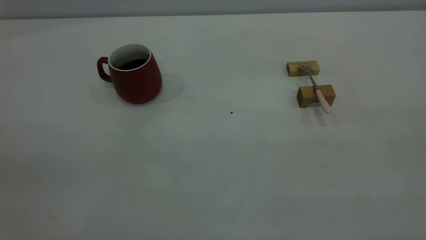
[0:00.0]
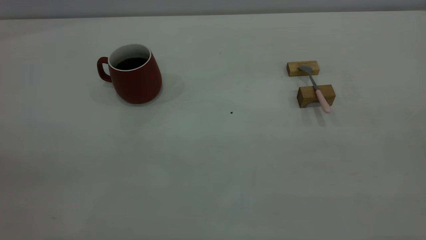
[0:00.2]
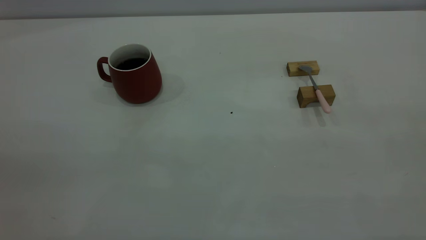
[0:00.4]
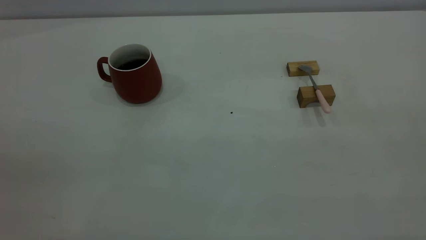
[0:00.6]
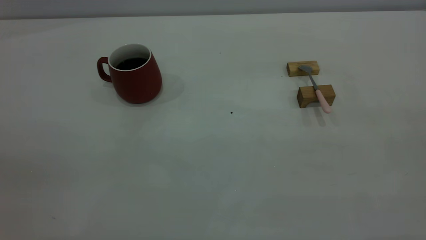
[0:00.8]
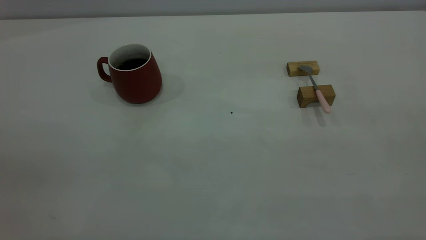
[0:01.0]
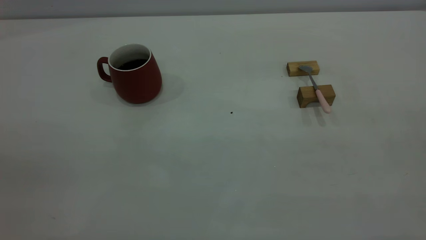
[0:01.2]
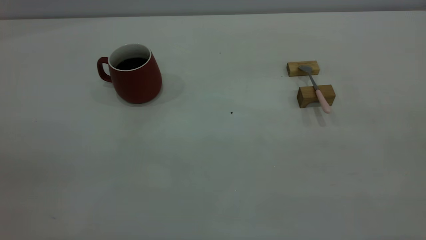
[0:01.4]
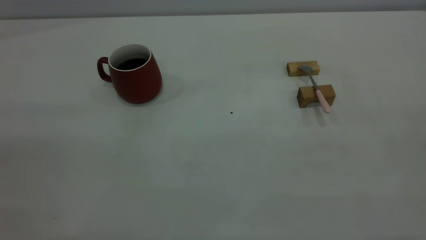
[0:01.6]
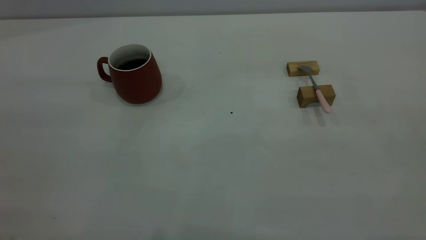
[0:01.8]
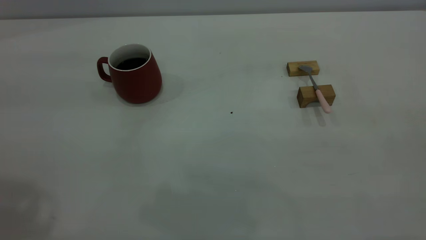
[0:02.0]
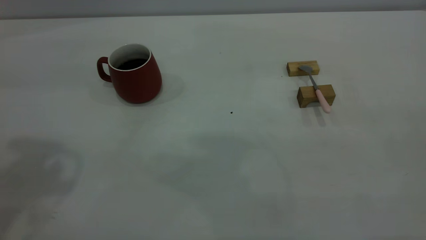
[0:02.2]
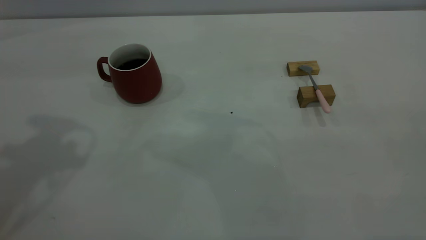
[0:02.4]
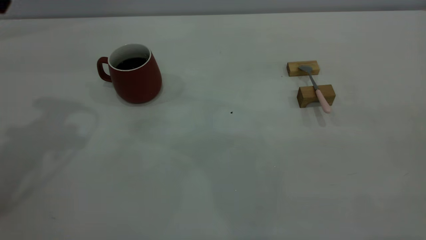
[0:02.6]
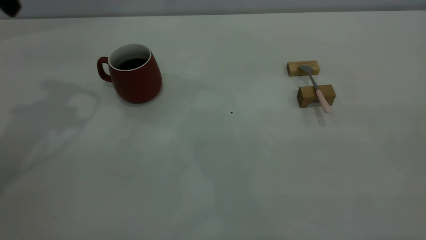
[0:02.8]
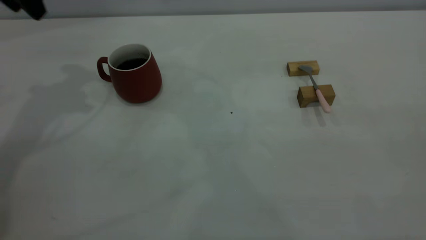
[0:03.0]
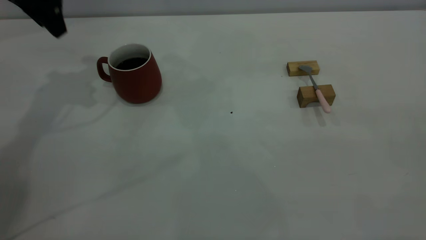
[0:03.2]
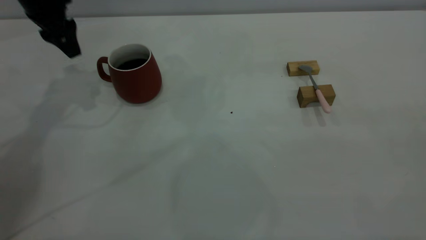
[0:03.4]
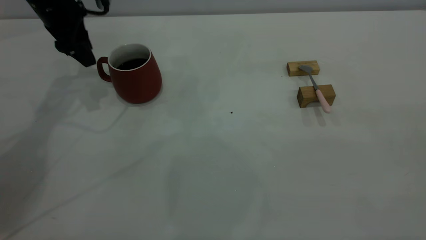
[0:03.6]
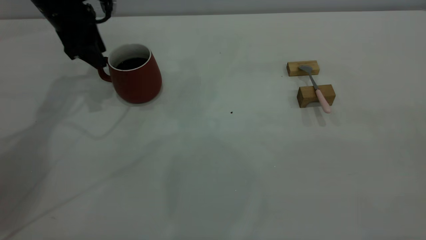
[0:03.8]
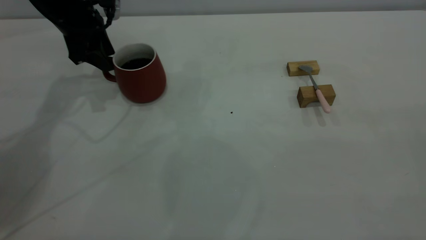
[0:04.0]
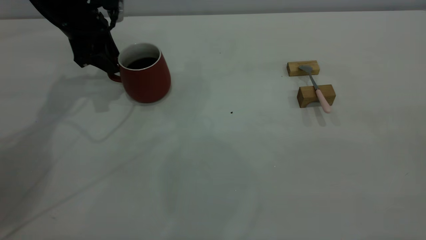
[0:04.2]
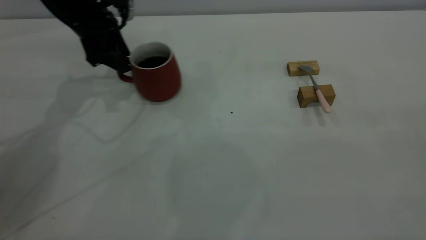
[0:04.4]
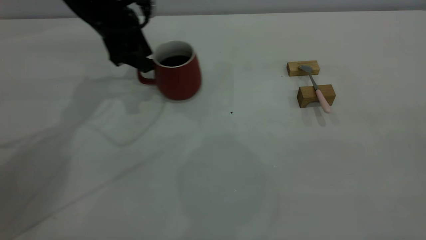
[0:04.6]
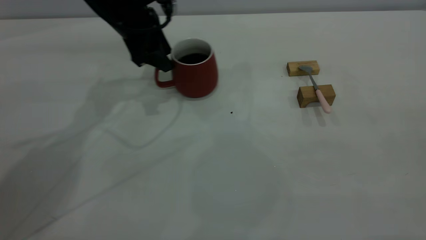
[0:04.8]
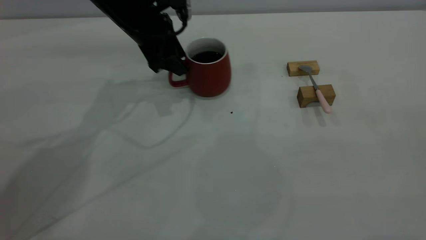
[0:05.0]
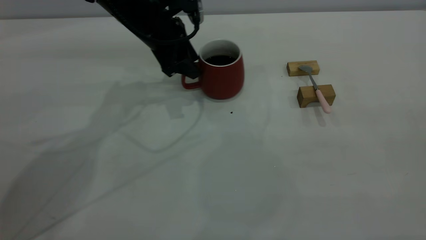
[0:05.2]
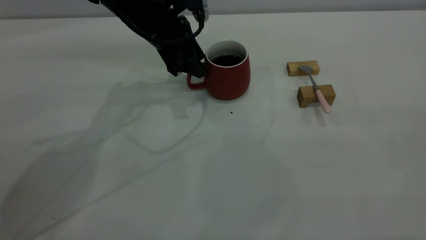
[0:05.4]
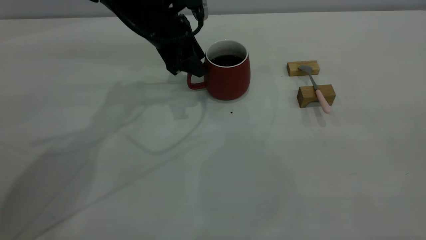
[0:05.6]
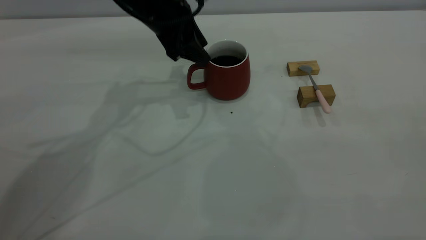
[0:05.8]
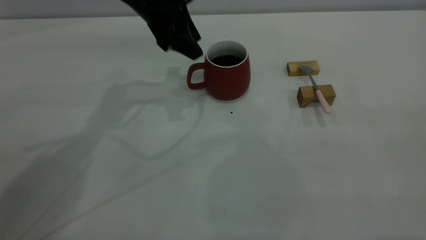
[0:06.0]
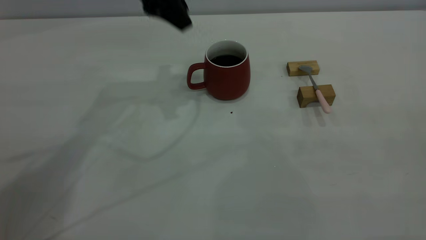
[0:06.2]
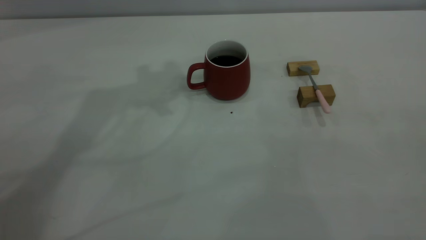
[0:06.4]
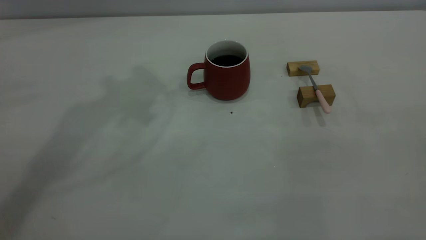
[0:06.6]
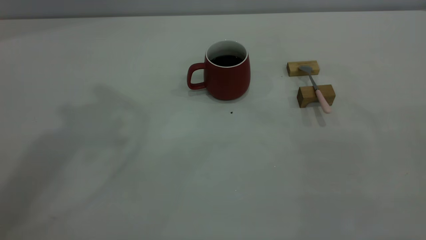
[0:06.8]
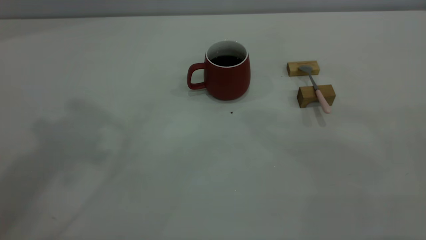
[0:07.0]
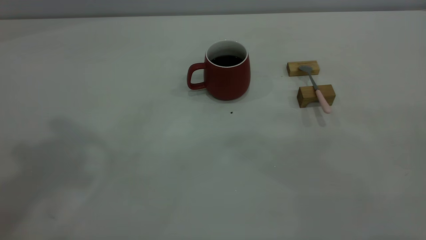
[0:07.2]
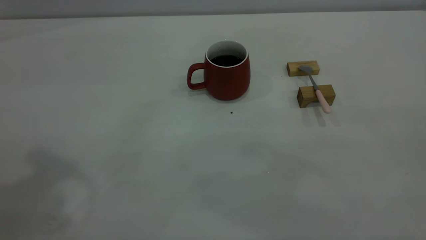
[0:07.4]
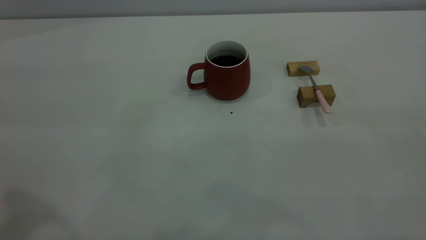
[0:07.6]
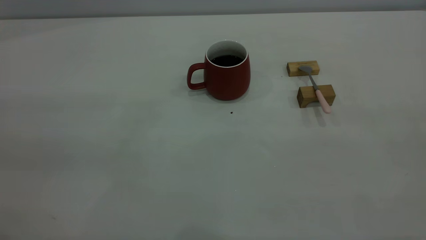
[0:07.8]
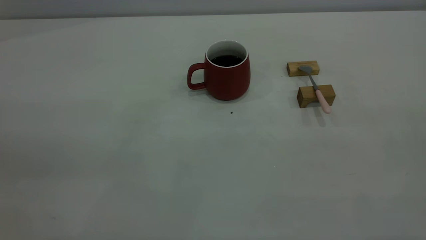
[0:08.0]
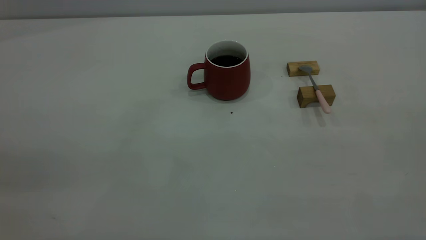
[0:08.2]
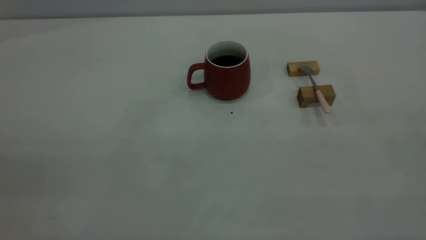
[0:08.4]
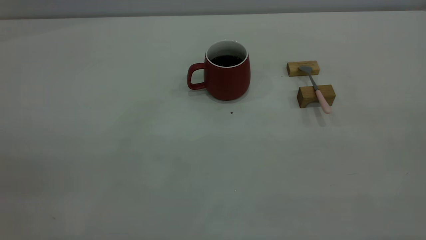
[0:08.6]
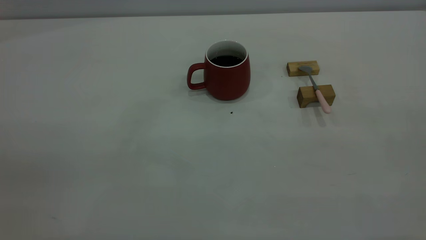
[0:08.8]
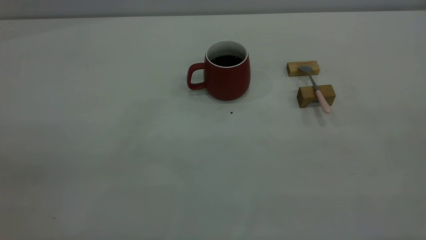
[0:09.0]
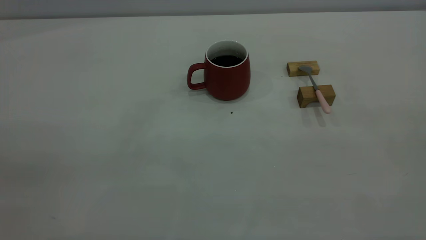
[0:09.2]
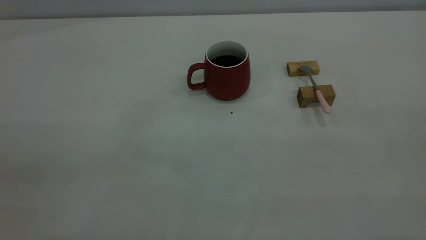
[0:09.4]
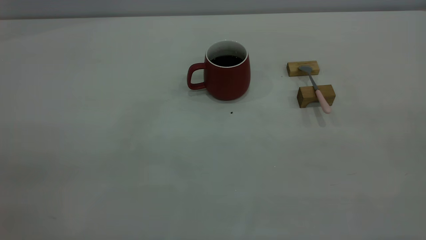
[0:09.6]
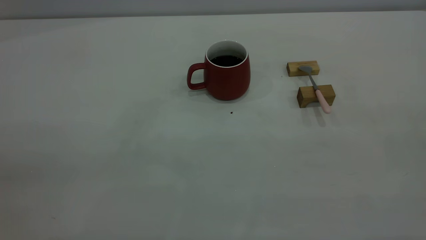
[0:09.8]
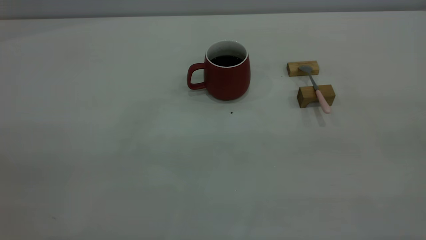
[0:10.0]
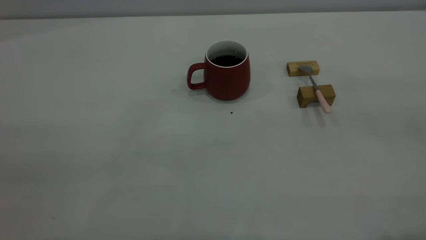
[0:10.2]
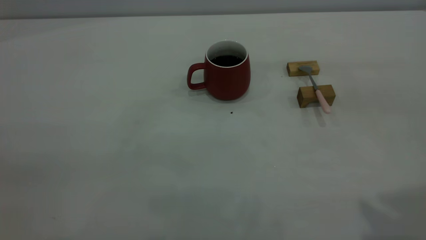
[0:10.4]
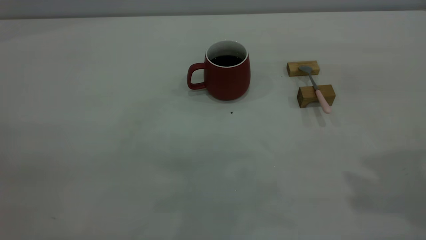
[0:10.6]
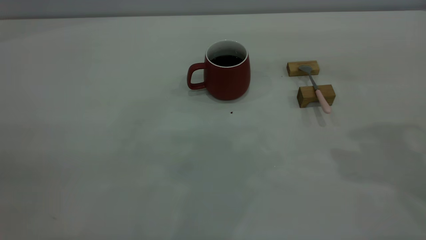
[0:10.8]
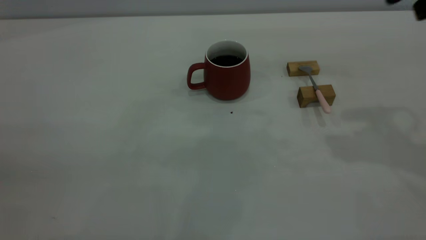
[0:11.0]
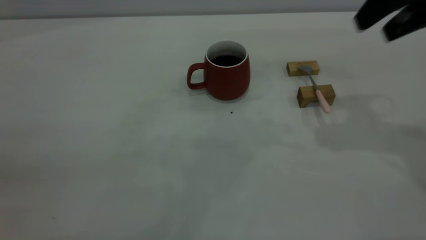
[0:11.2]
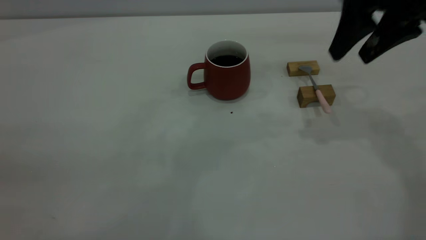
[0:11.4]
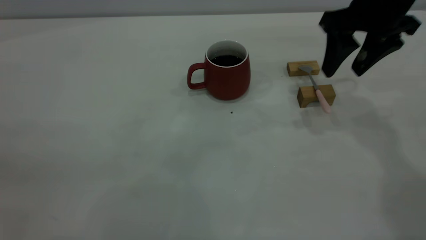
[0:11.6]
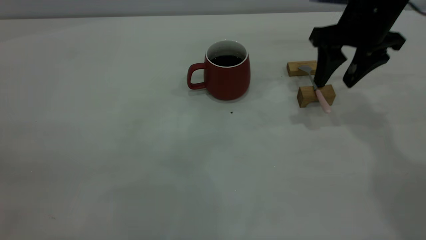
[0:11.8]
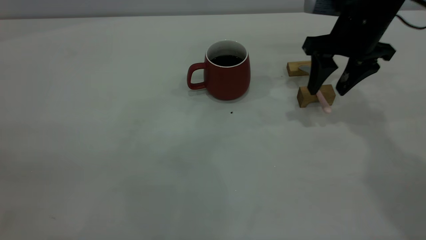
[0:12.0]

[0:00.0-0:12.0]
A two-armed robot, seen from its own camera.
Step, 0:00.0 to 0:06.0: Move the cup with coffee to the center of view.
0:03.0 to 0:04.4: The left gripper heads downward and to the right, covering about 15 cm.
0:04.4 to 0:06.0: The left gripper goes approximately 10 cm to the right and upward.
0:06.0 to 0:07.6: The left gripper travels backward, upward and to the left by about 40 cm.
0:10.4 to 0:12.0: The right gripper moves forward and downward, about 35 cm.

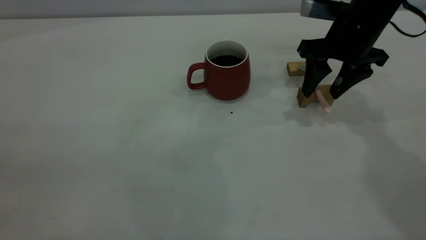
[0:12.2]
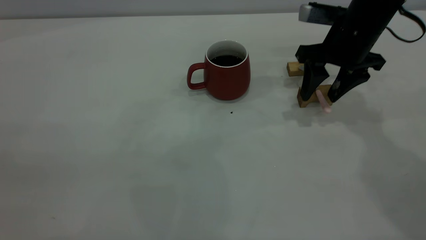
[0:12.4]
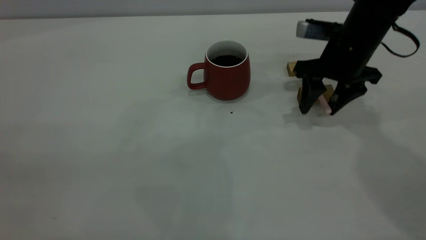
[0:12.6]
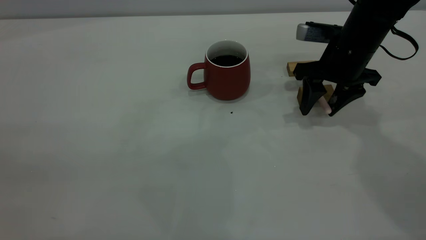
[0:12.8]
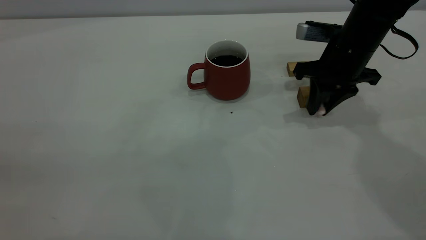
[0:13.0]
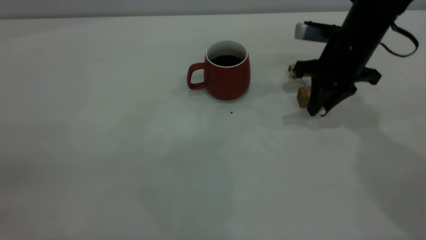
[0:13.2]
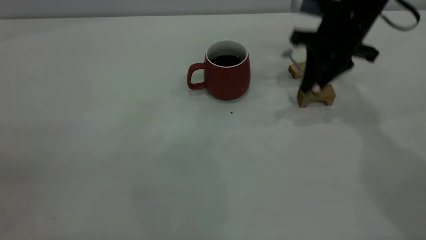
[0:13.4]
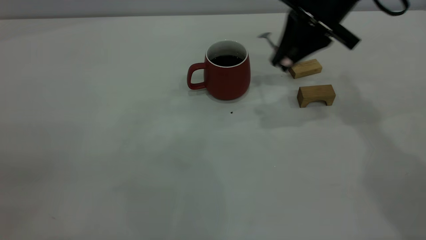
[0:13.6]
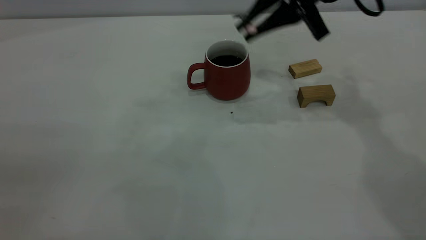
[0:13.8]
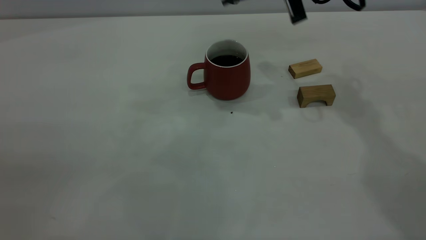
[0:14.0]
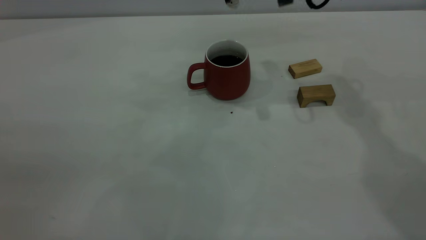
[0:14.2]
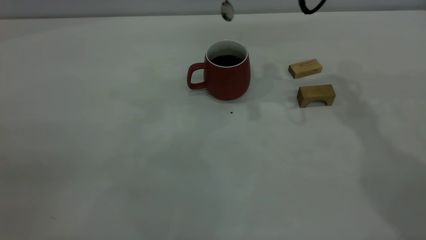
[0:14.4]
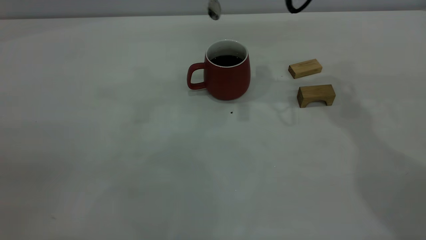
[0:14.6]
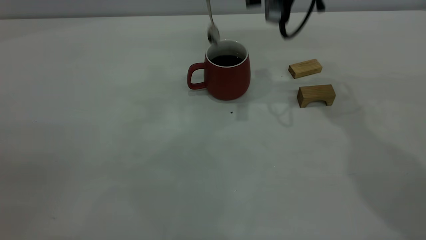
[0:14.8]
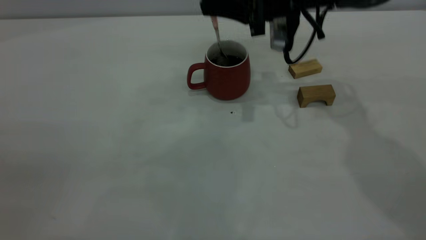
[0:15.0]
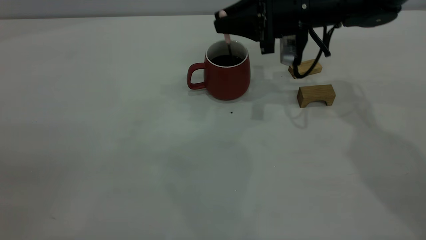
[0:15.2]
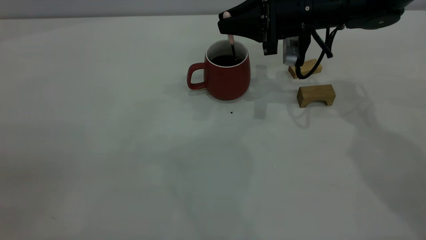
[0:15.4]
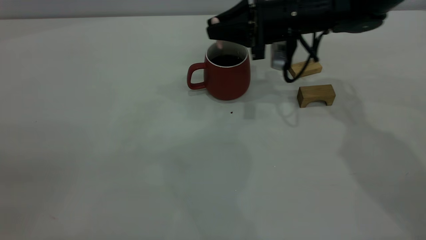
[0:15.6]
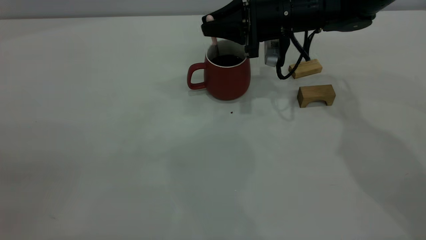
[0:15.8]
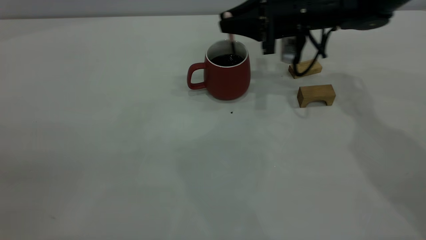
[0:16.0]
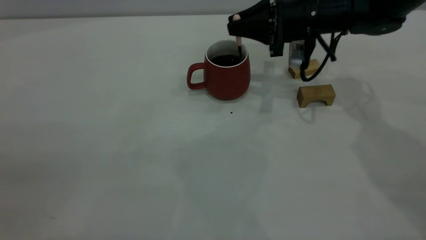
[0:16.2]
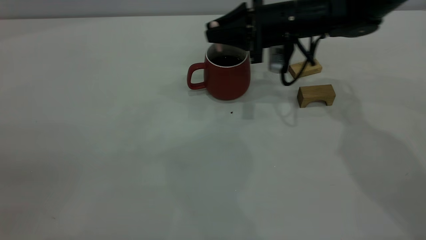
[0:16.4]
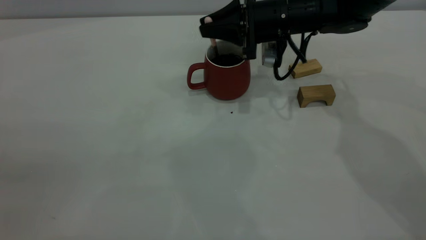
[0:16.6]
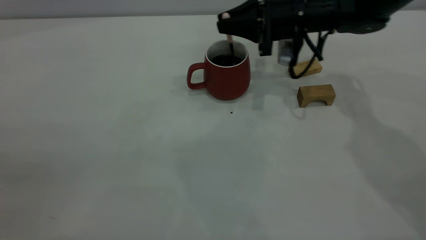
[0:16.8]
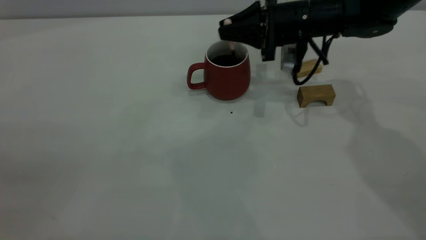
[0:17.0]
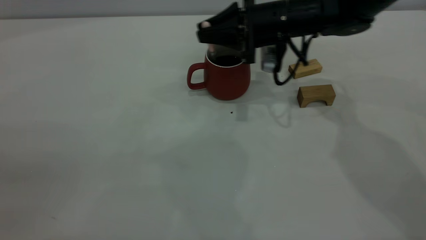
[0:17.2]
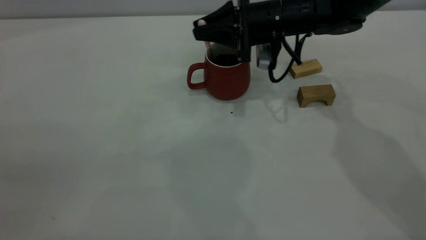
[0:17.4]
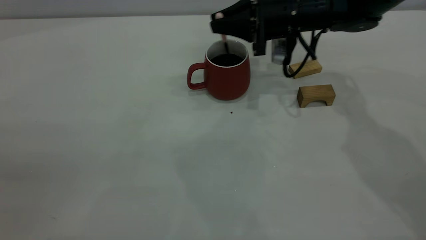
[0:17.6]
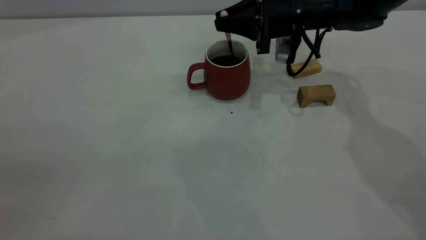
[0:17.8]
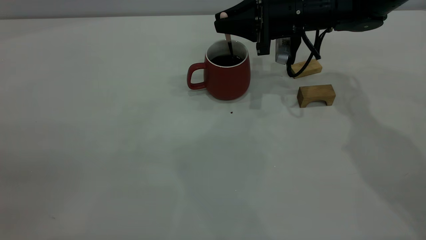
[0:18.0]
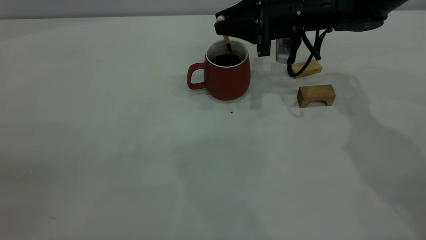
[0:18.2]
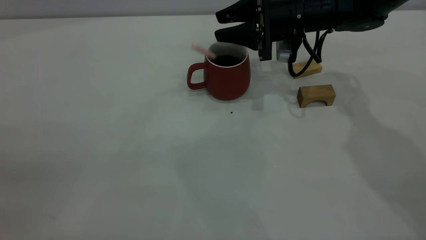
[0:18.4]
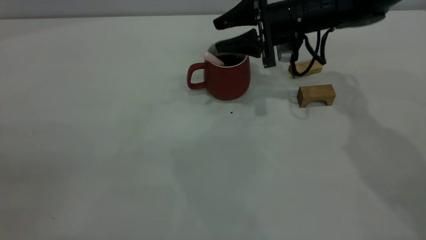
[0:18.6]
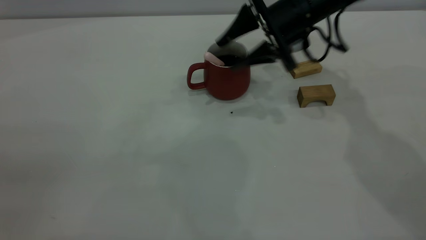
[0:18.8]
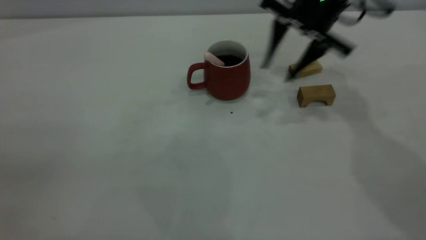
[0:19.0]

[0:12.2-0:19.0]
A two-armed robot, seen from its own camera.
Step, 0:13.4 to 0:18.4: Stir the coffee in the cup.
0:12.2 to 0:13.6: The right gripper travels upward by some 5 cm, and closes its fingers.
0:13.6 to 0:15.0: The right gripper moves approximately 5 cm.
0:15.0 to 0:16.2: The right gripper ends up approximately 5 cm from where it was.
0:16.2 to 0:17.6: There are only small adjustments of the grippers.
0:17.6 to 0:19.0: The right gripper is displaced upward by roughly 5 cm, and opens its fingers.
